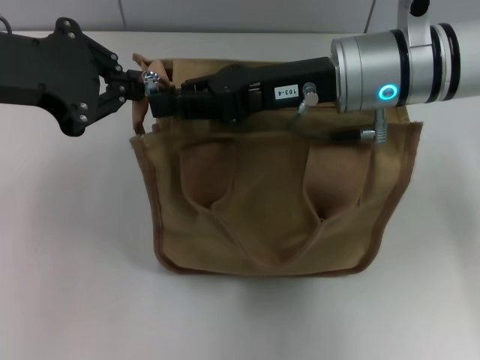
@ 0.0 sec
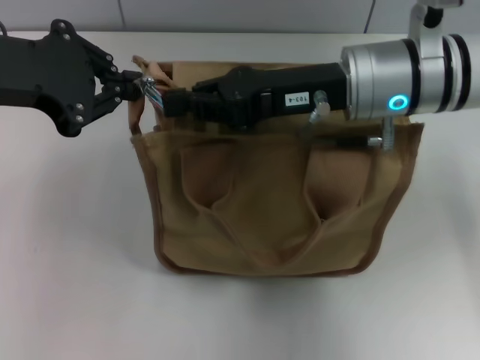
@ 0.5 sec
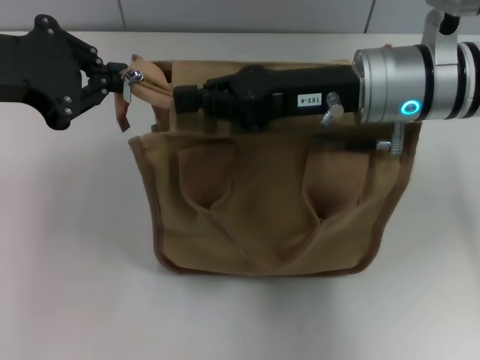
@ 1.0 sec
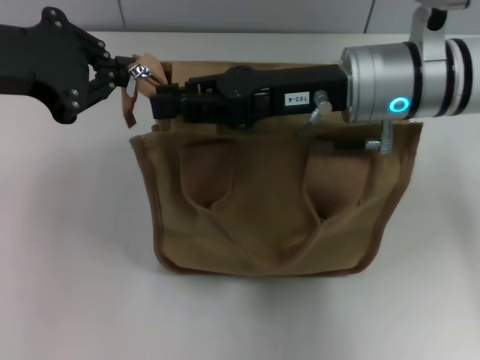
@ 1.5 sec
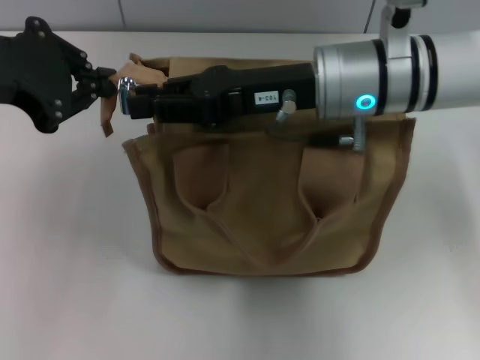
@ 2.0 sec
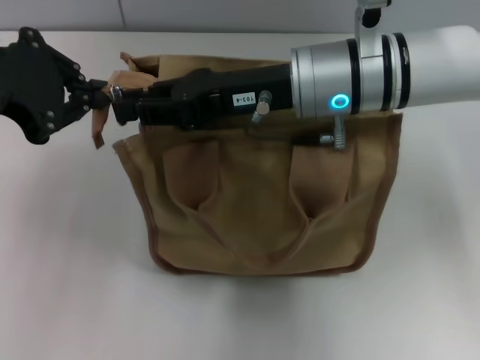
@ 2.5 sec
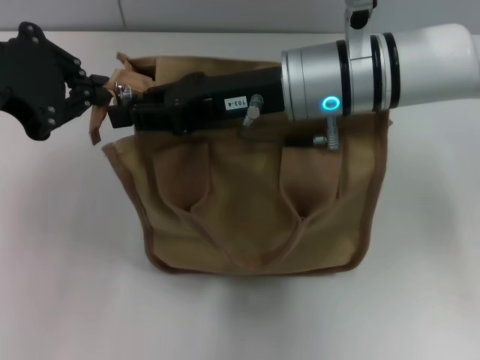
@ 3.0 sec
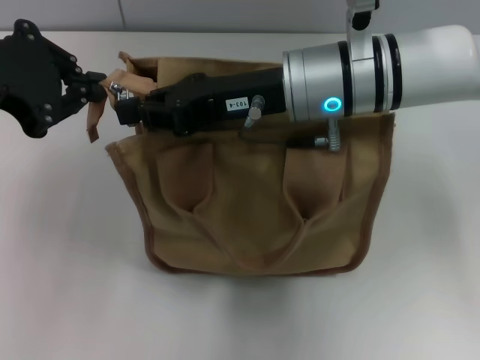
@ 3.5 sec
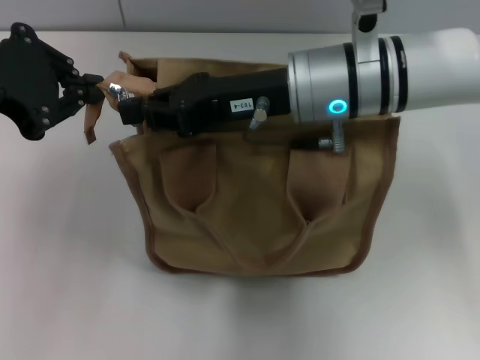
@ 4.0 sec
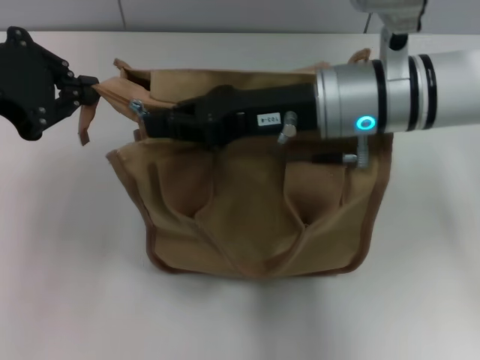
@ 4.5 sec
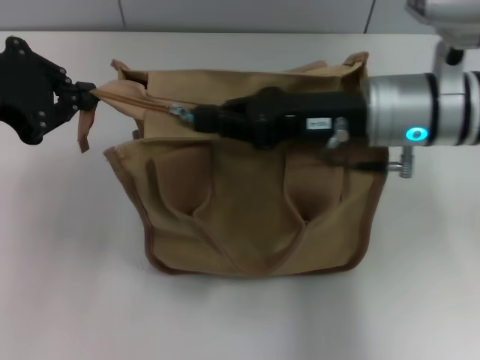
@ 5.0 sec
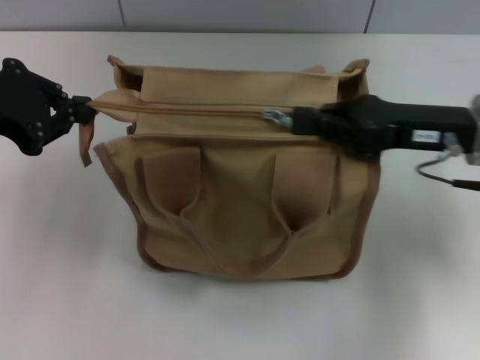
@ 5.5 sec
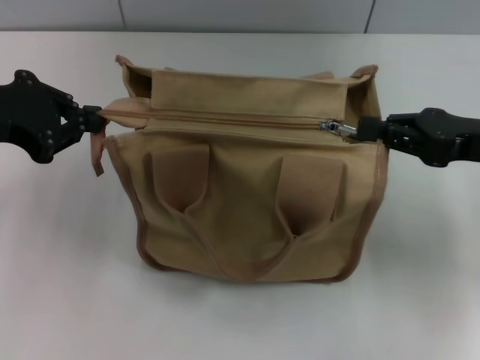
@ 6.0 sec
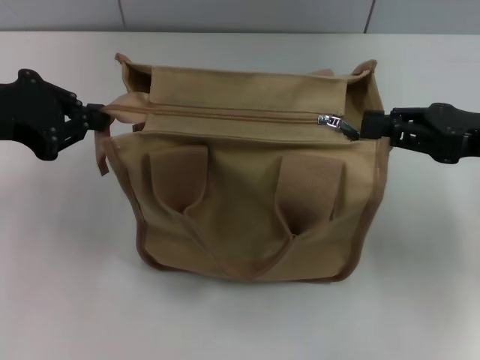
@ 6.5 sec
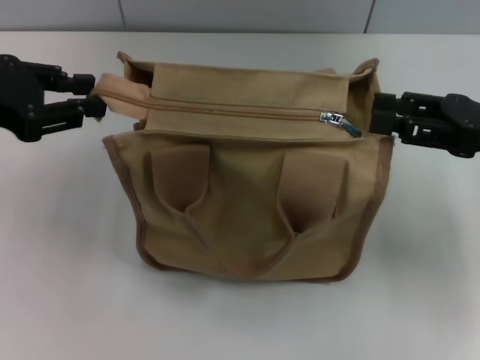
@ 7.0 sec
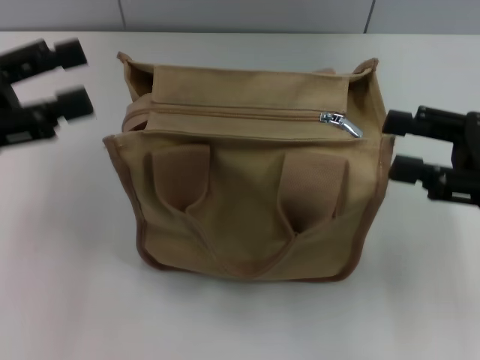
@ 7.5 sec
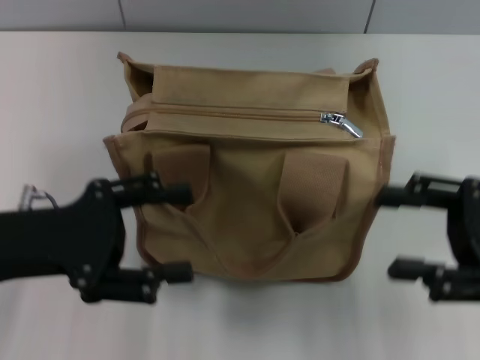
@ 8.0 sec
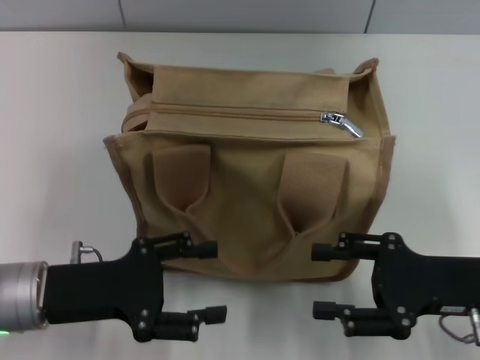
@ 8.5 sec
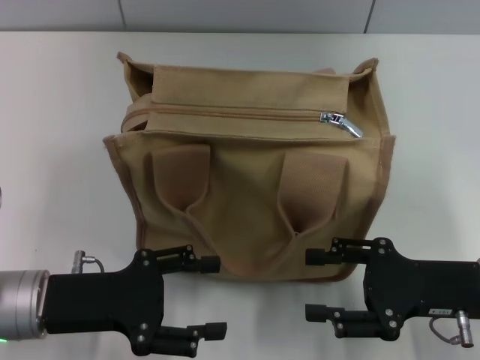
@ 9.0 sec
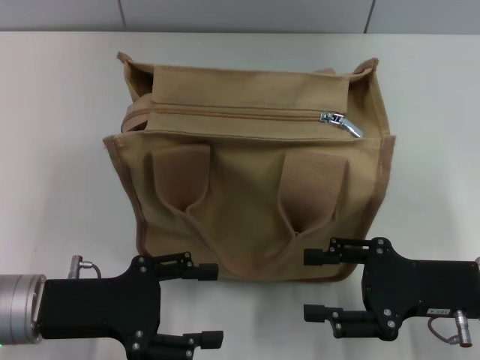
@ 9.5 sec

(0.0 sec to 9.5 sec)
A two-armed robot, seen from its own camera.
Step, 0.0 sec - 6.5 sec: Pull up the zipper with your right hand.
0.0 sec - 2.0 sec: The right gripper closes, then reopens.
2.0 sec - 4.0 sec: The right gripper closes.
4.0 sec - 5.5 sec: The left gripper shifts by some 5 cm. The right gripper is displaced to the right by some 15 cm.
5.5 sec - 7.5 sec: The left gripper changes place by some 5 cm, and opens, while the right gripper moves to the right and backward, about 10 cm, and opens up.
7.5 sec - 9.5 sec: The left gripper travels downward, to the right and backward by roughly 15 cm, while the right gripper moves downward and to the left, roughly 10 cm.
